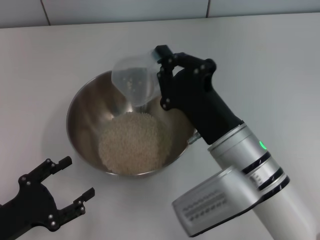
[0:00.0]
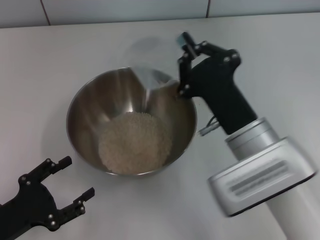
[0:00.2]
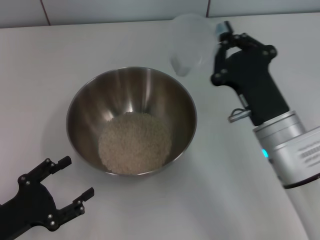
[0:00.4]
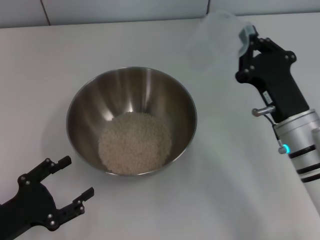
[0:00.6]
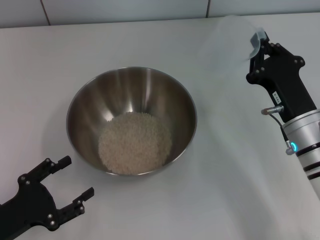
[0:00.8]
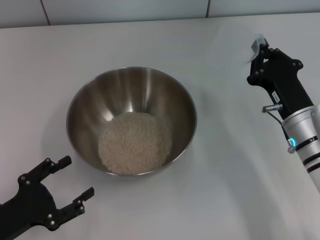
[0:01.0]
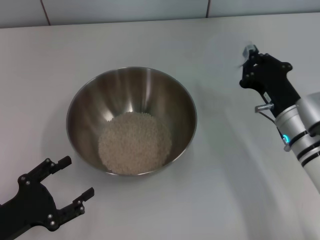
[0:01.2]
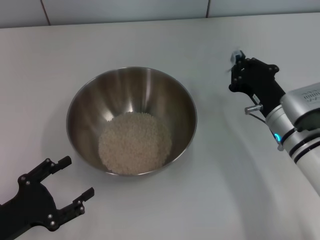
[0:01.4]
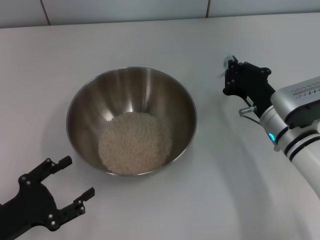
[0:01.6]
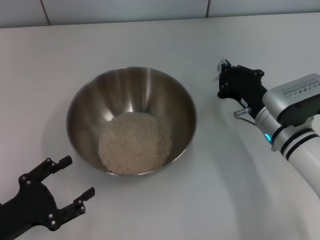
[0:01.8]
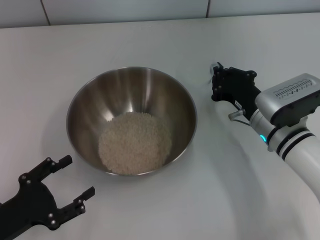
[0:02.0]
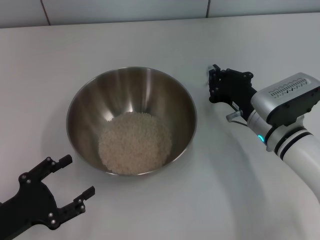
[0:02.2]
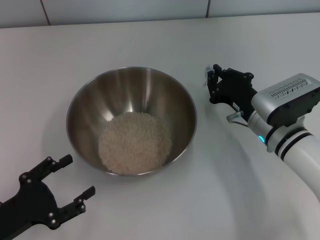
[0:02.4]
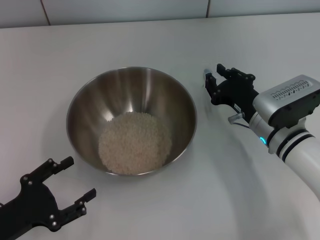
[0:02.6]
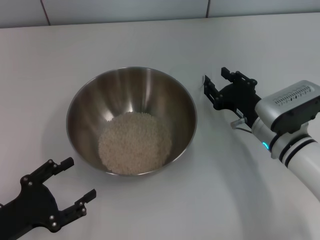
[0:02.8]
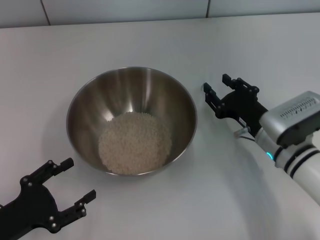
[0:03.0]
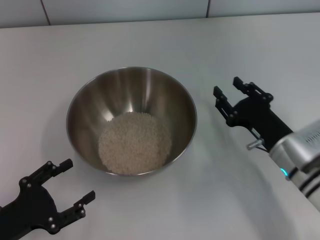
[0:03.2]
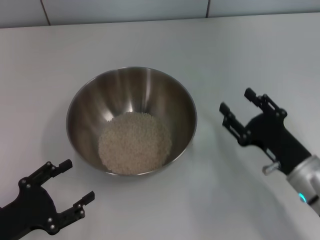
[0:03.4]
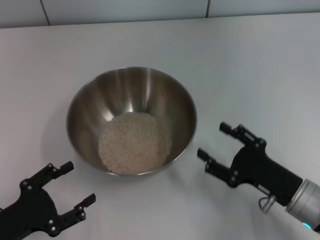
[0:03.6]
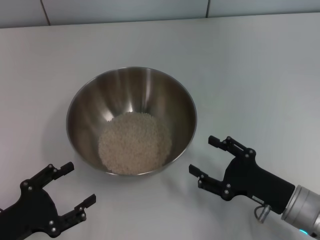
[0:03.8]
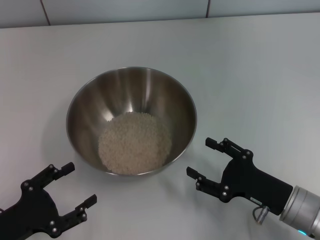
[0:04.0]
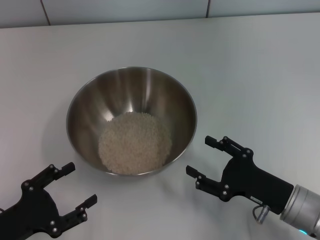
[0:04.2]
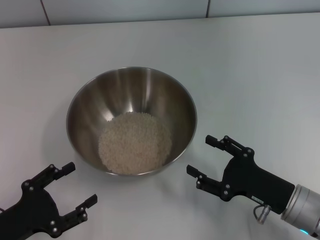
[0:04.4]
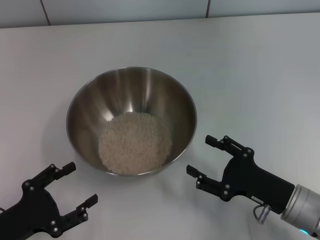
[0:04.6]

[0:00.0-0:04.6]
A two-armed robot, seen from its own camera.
Task of the whole recording: Place the bowl in the middle of the table with one hand and pour the rice from the grain cup into it with the other hand.
Step, 0:00.2 to 0:03.0: Place the cup on the table with the right gripper.
0:00.0 to 0:01.6: The right gripper moves to the right, forward and downward, roughly 15 cm.
0:01.6 to 0:03.0: The right gripper opens its fingers.
0:03.0 to 0:04.6: The right gripper is displaced backward by some 10 cm.
